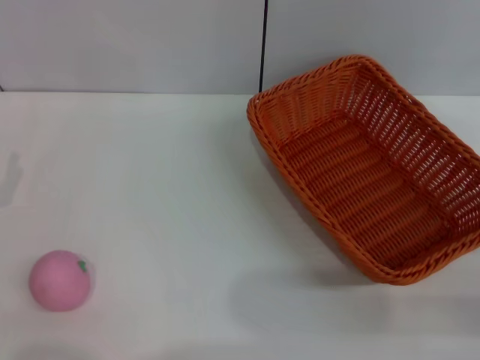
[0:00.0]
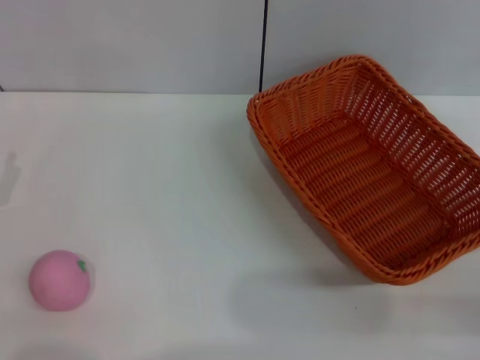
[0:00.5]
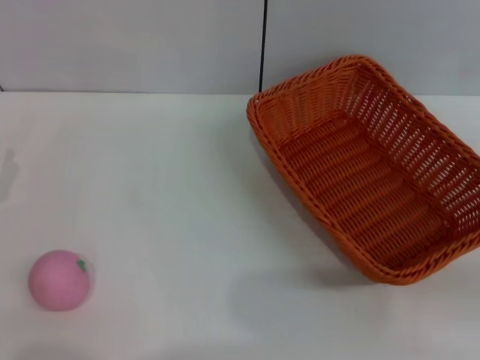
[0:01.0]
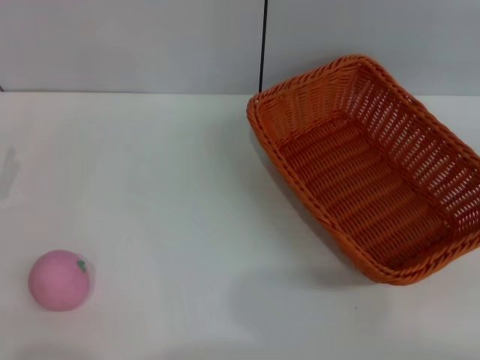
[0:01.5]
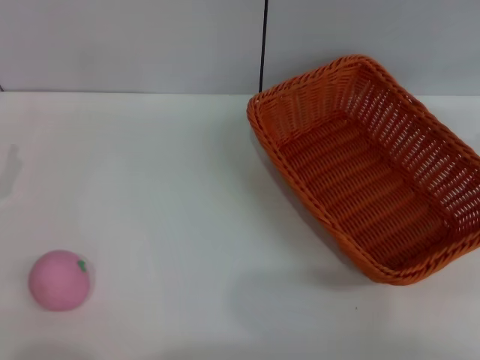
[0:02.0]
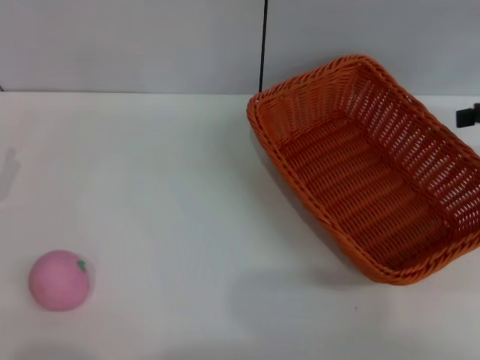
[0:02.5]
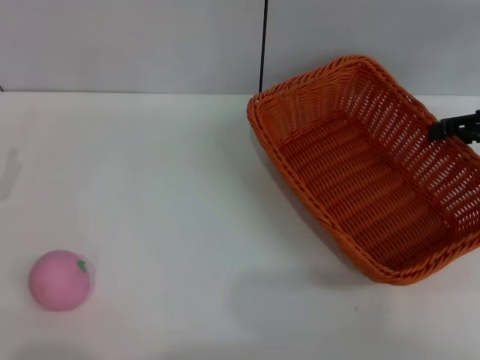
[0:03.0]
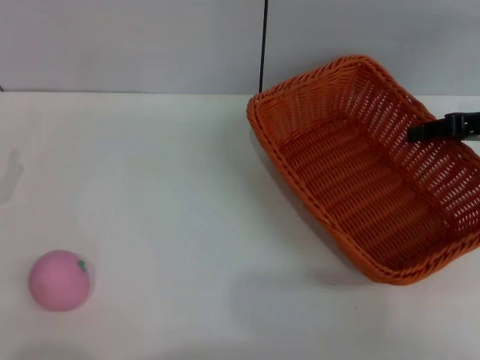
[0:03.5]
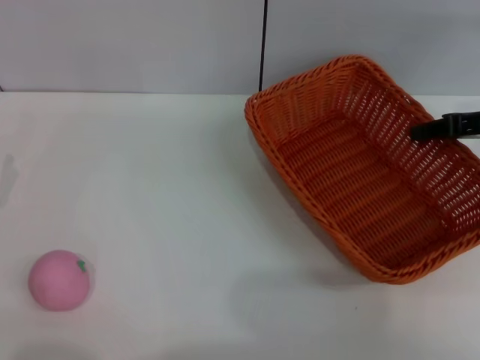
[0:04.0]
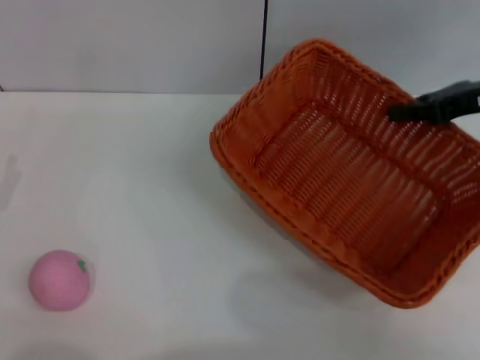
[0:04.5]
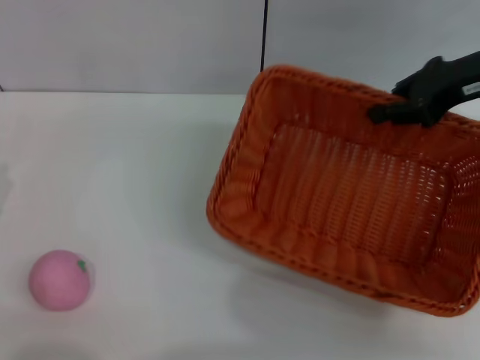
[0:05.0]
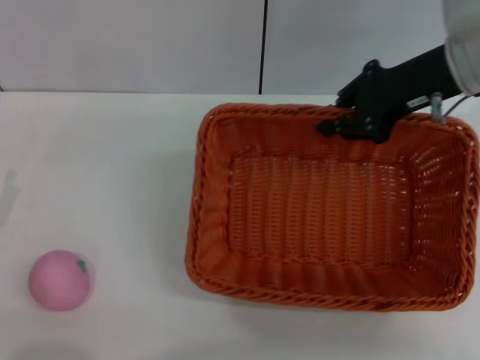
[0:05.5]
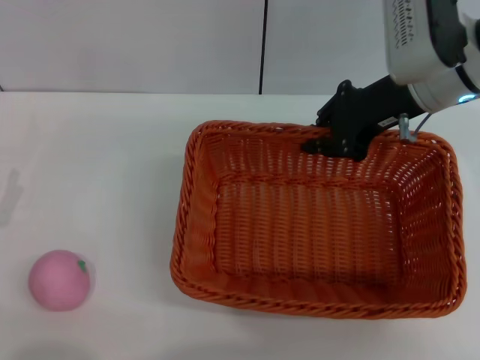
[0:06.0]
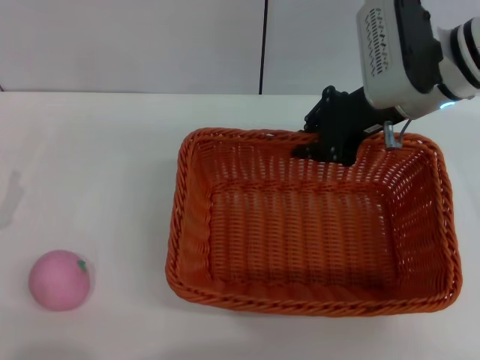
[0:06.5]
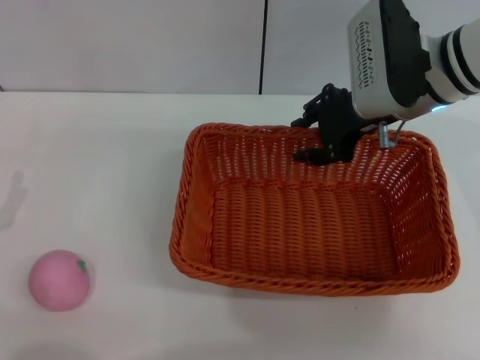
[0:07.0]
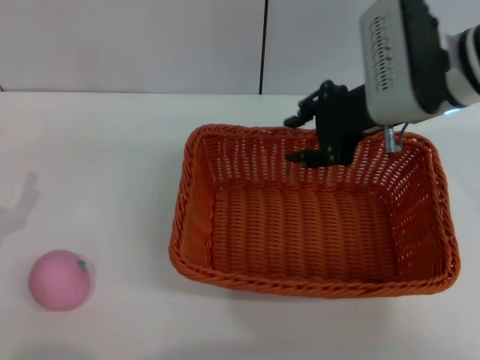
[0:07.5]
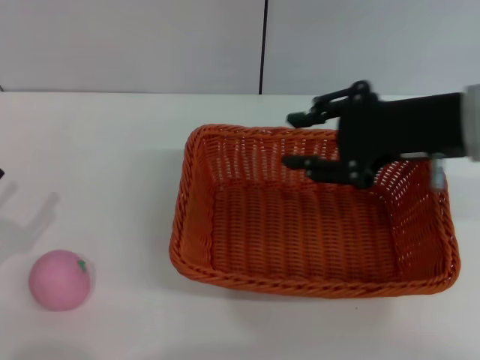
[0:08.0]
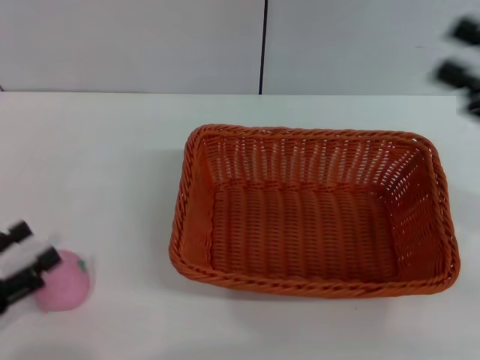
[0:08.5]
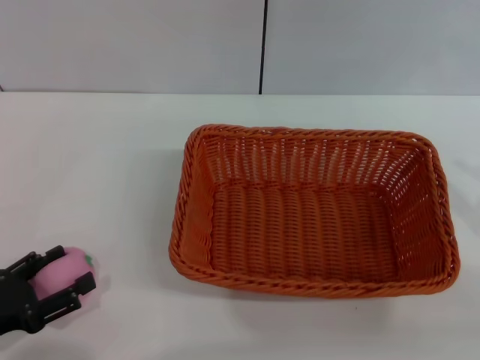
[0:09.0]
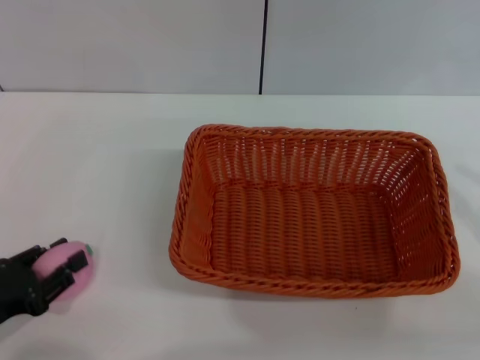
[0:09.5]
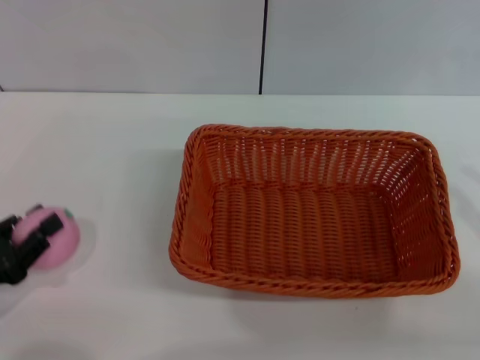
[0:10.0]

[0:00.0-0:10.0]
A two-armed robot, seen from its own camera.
Step, 0:00.0 to 0:04.5: Pick up the light basket with the right gripper.
Step, 0:05.0 to 0:07.5: Place the light basket in the center of view with the right gripper.
0:00.0 to 0:02.0: The right gripper is displaced upward and forward by some 25 cm.
0:02.0 to 0:04.0: The right gripper moves downward and to the left, some 10 cm, and closes up.
0:04.0 to 0:06.0: The right gripper is displaced to the left by about 15 cm.
0:06.0 to 0:08.0: The right gripper shifts about 10 cm backward, and opens up.
0:08.0 to 0:10.0: The left gripper closes, while the right gripper goes roughly 20 cm to the right, backward and downward.

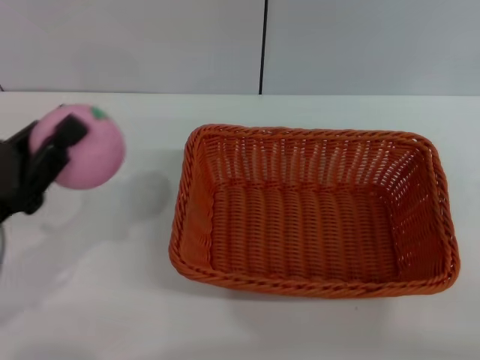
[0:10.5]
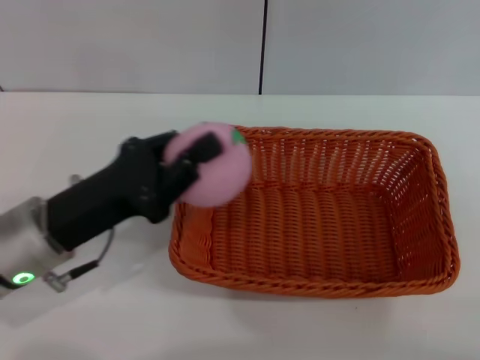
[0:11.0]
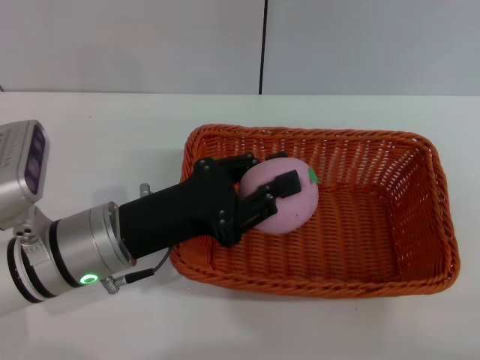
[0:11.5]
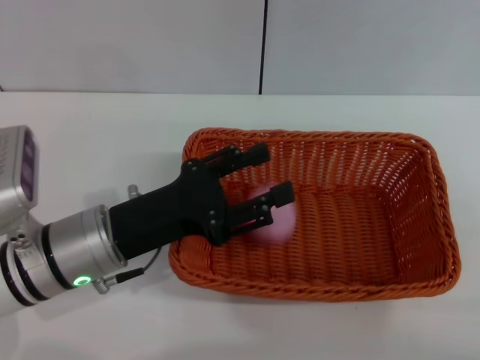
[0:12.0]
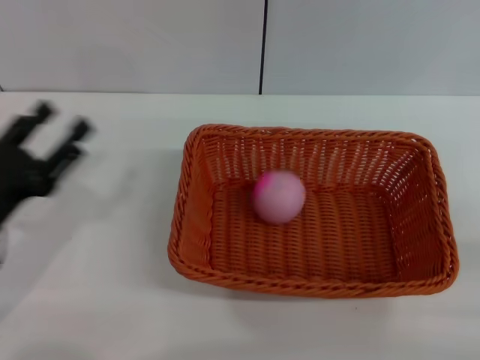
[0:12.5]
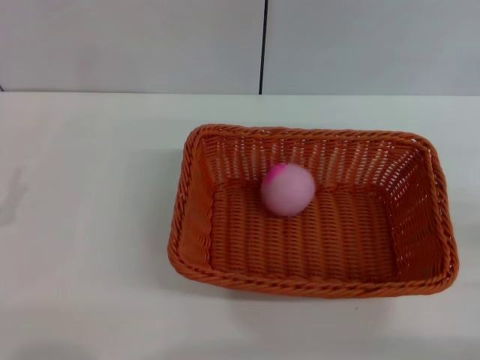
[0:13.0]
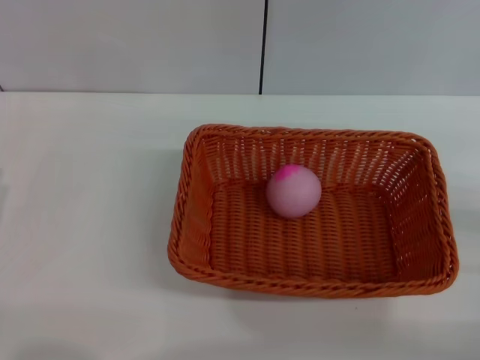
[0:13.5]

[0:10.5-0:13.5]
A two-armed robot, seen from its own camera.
Step, 0:10.5 to 0:12.0: Place the peach into the basket with the left gripper.
0:10.5 to 0:12.0: The left gripper shifts roughly 10 cm to the right, and opens.
0:12.0 to 0:13.5: The right gripper travels downward by roughly 5 cm, and opens its fingers, while the left gripper moves to the left and backward, roughly 20 cm.
